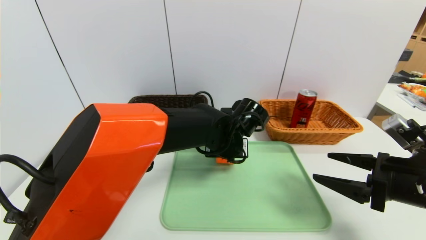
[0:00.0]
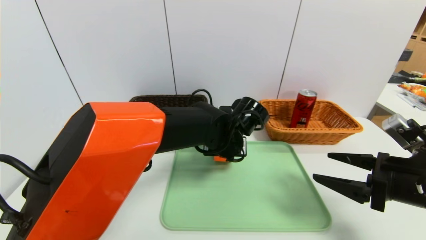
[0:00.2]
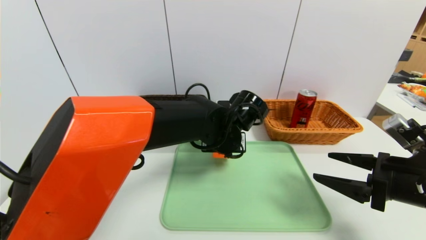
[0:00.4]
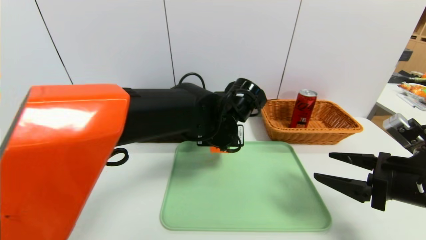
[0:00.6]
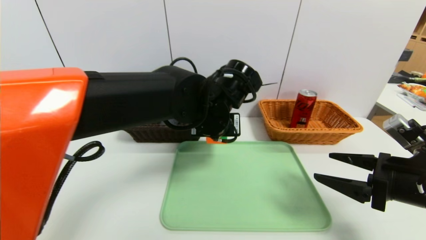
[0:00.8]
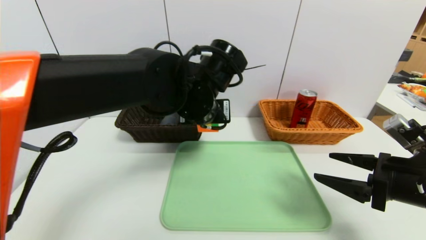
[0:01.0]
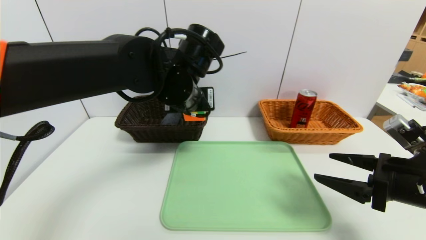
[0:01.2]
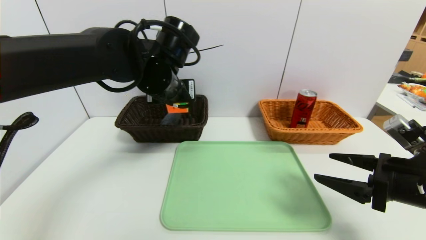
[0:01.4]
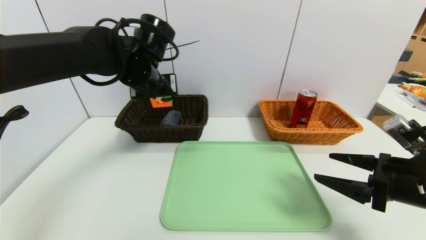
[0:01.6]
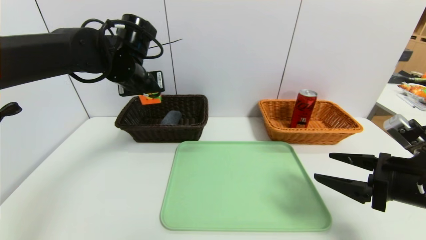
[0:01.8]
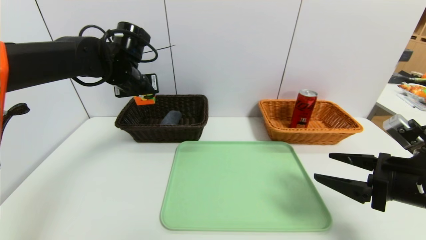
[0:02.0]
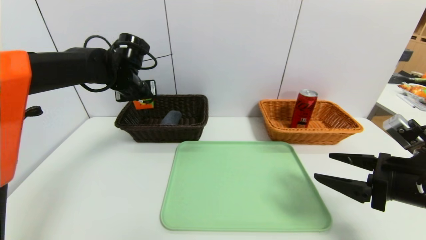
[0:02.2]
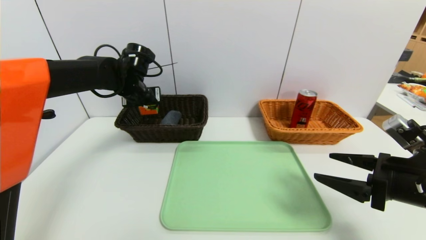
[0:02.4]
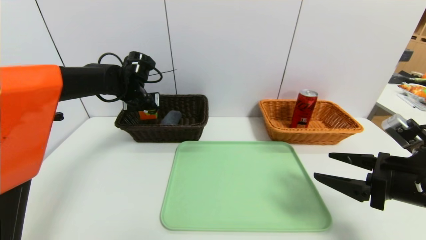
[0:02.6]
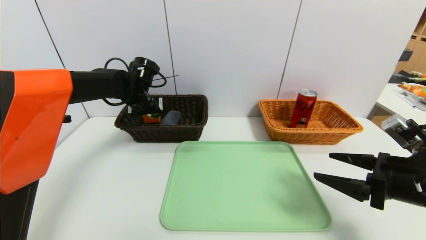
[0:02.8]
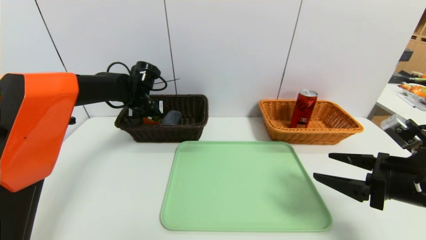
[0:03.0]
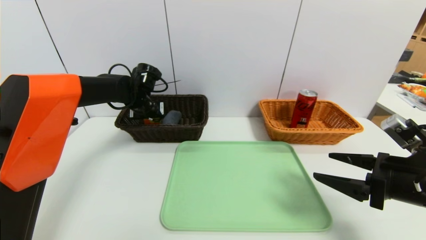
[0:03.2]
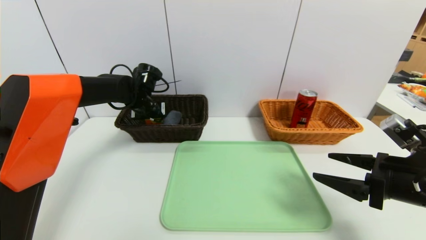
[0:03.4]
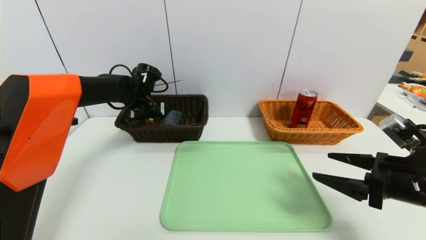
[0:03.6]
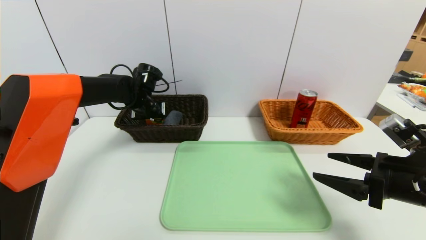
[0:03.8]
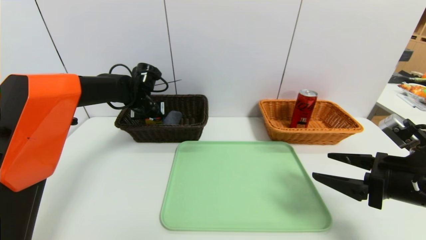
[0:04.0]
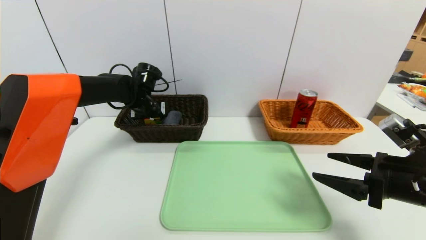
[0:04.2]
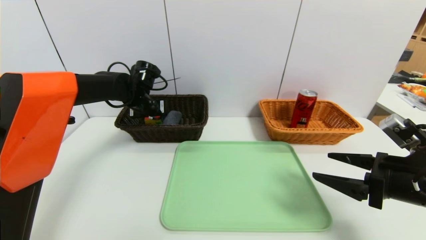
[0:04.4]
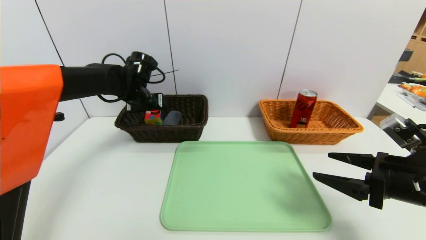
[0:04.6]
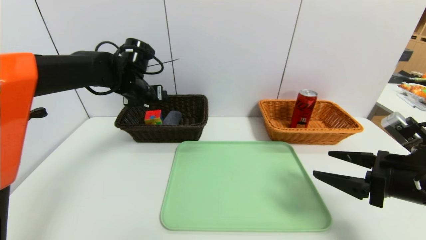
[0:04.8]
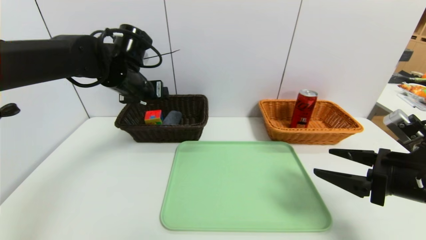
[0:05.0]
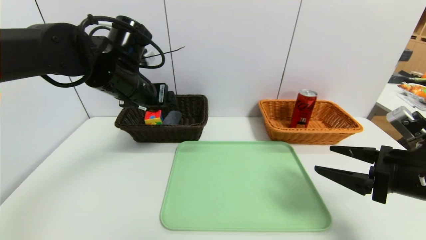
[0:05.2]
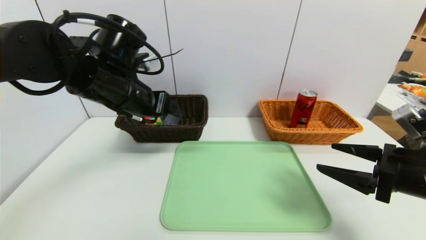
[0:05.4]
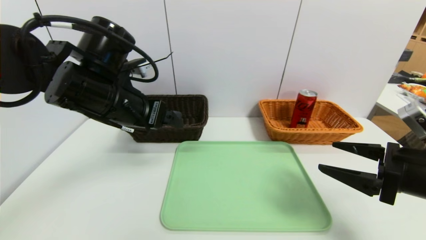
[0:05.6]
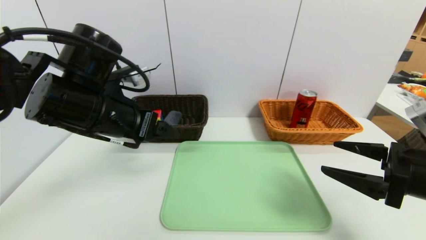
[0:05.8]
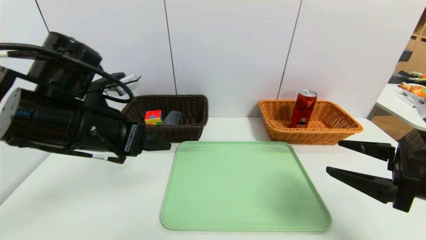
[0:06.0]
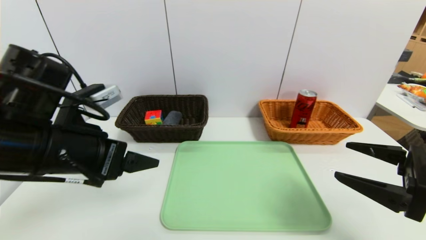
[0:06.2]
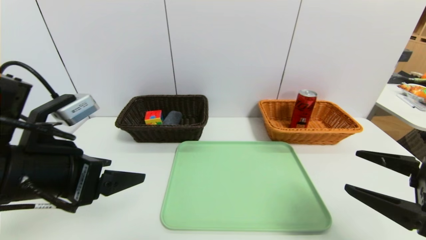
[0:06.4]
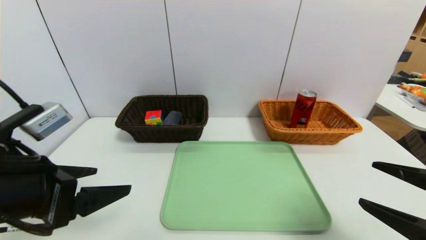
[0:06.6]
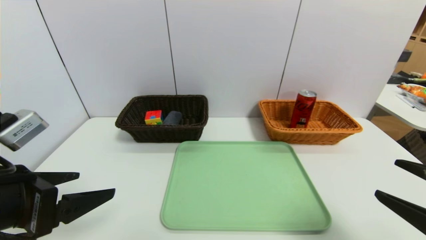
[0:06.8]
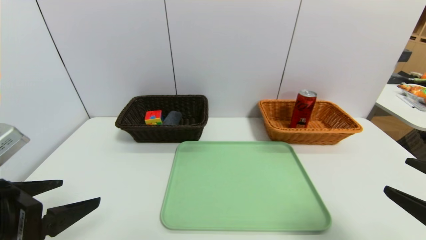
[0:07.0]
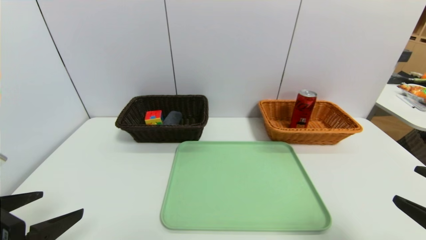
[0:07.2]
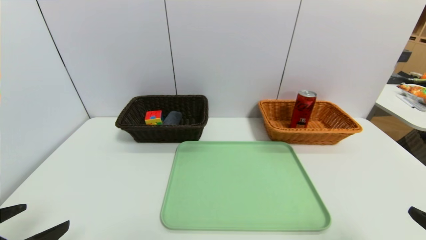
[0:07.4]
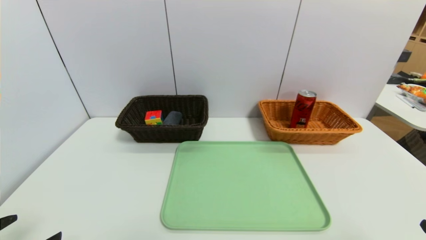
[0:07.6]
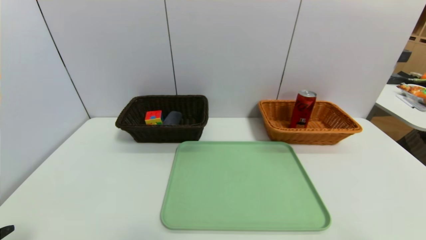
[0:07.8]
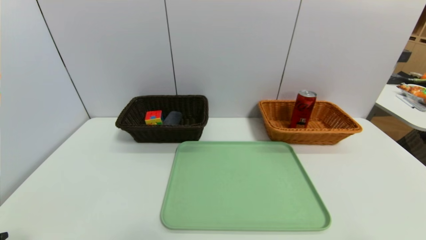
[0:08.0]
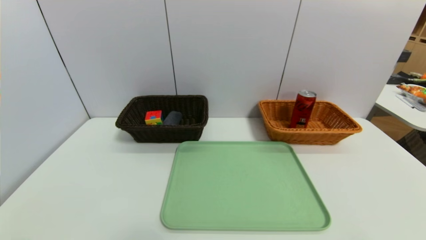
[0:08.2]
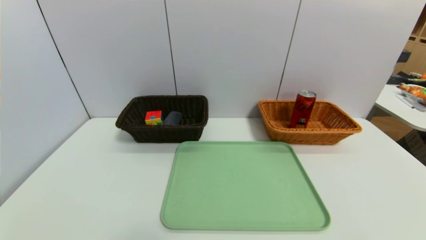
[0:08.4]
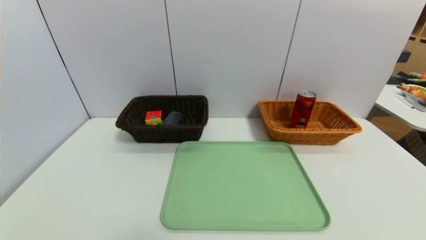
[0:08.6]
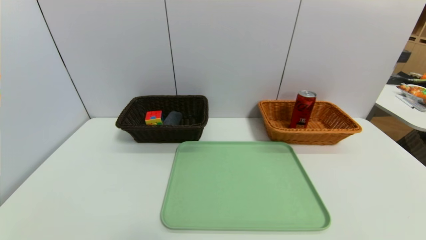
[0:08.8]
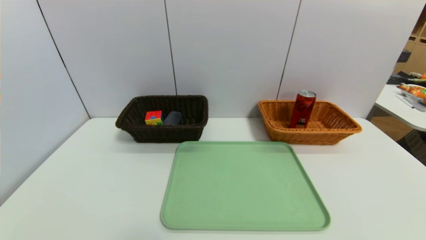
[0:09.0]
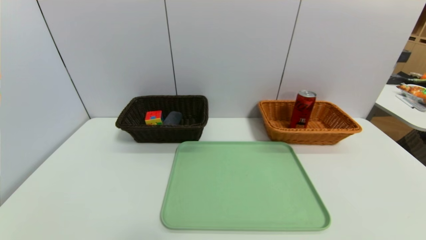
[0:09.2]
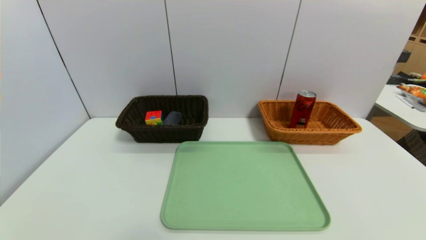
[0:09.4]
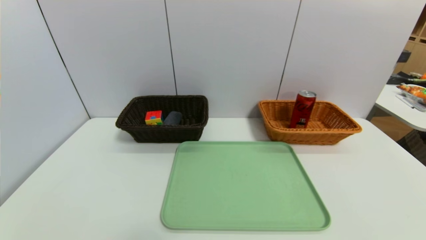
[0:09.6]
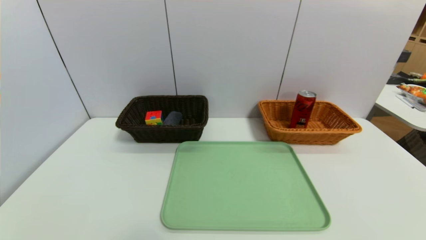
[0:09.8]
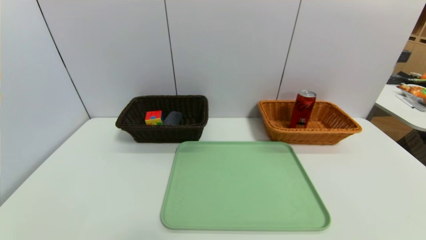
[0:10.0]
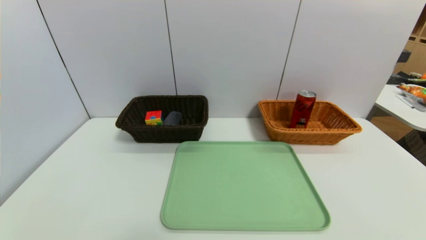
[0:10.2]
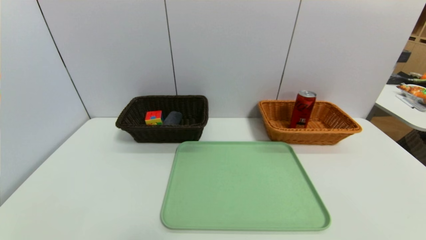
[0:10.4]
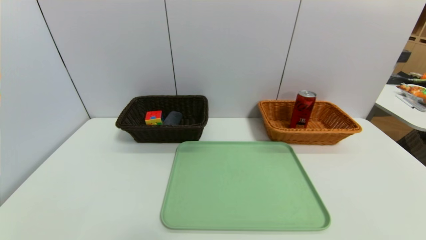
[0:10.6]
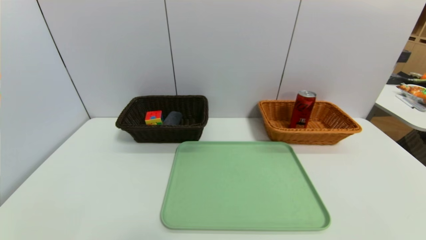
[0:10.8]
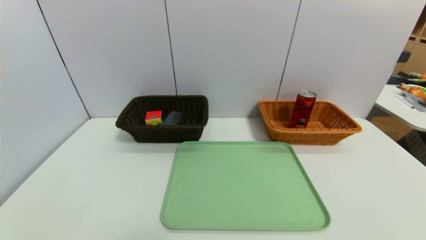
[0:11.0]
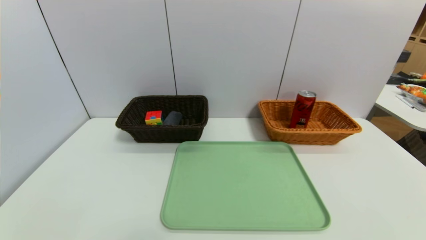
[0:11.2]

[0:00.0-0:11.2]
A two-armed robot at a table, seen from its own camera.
Task of the whole recording: place the food in the right basket with the right gripper, and place the non food items in the left basket with the left gripper.
Step, 0:00.0 to 0:04.4: Grasp the rubiks cube and put it in the left basket.
0:00.0 to 0:01.6: The left gripper heads to the left and upward, covering some 20 cm.
0:01.6 to 0:03.2: The left gripper moves downward, forward and to the left, some 15 cm.
0:03.2 to 0:04.8: The left gripper is displaced upward by about 5 cm, and opens.
0:04.8 to 0:06.4: The left gripper heads backward, covering roughly 25 cm. The right gripper travels backward by roughly 5 cm.
0:06.4 to 0:08.0: The right gripper shifts roughly 10 cm backward. Meanwhile the left gripper travels backward, downward and to the left by approximately 20 cm.

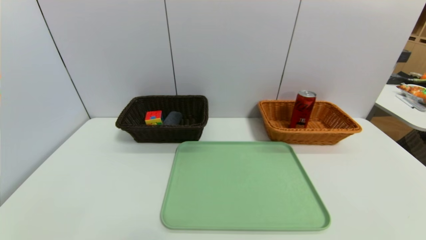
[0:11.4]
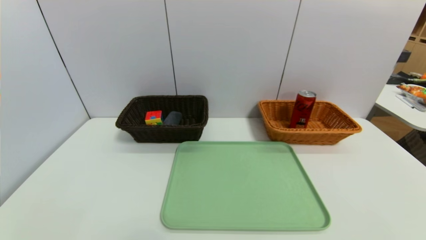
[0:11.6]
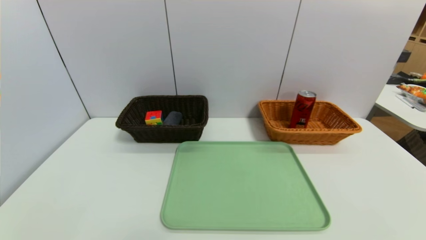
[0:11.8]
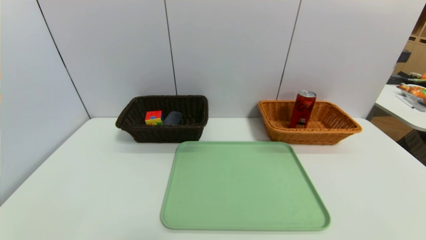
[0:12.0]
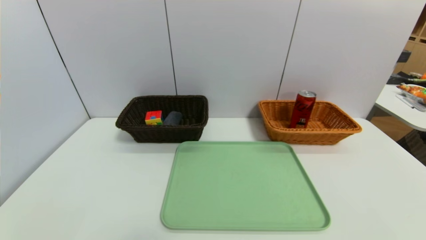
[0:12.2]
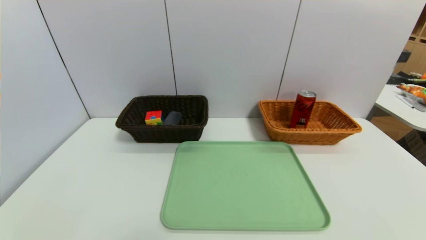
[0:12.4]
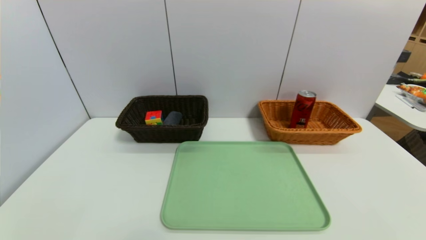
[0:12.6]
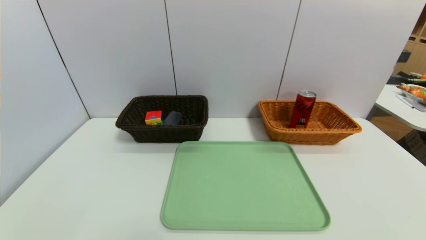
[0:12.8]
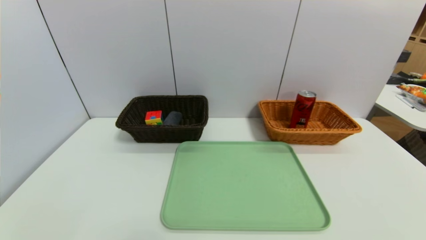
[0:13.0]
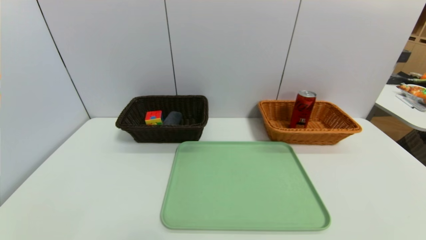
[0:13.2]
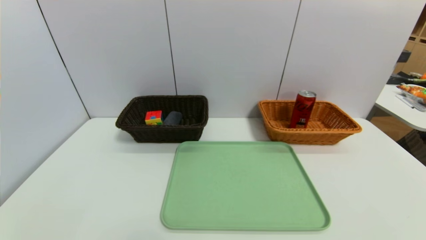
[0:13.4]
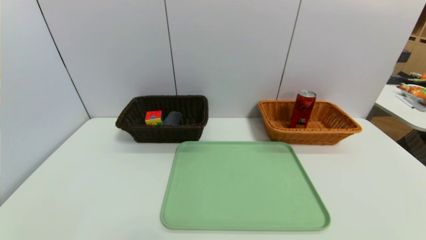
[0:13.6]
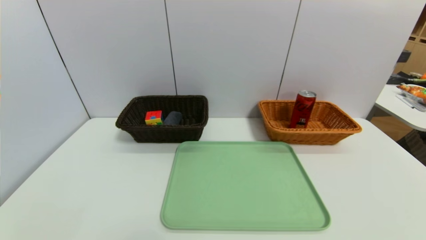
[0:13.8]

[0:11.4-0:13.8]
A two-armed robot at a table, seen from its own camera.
Task of the whole recording: place the food in the right basket with the right gripper, and place the non food items in the left basket with the left gripper.
0:11.4 to 0:13.8: Both grippers stay about where they are.

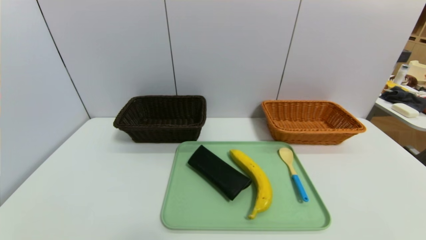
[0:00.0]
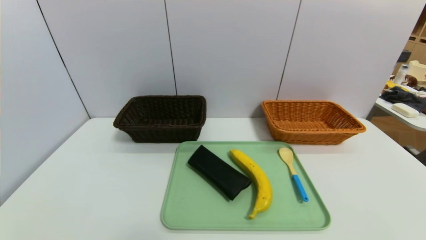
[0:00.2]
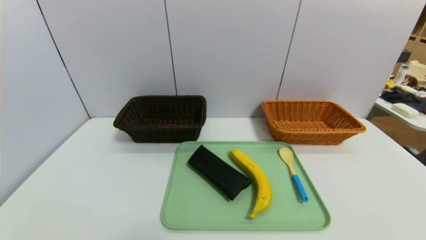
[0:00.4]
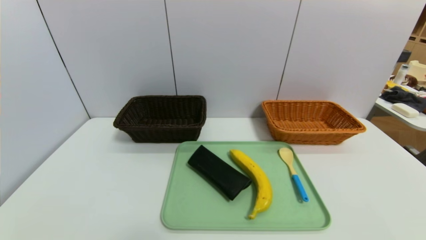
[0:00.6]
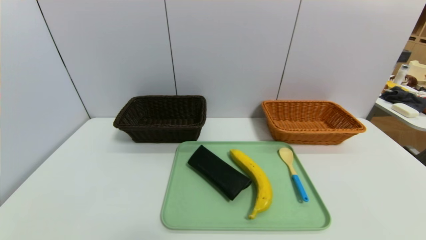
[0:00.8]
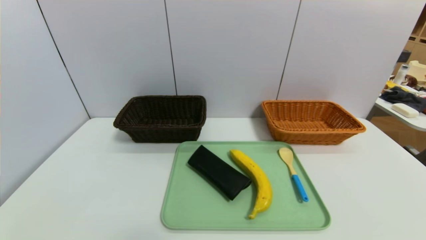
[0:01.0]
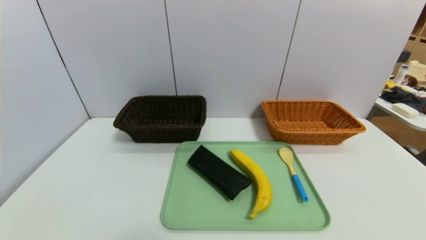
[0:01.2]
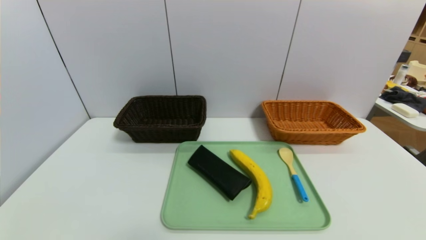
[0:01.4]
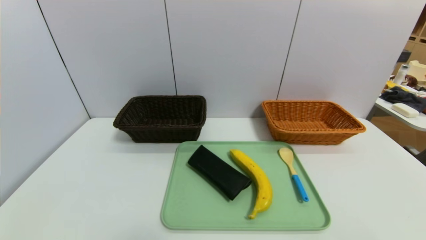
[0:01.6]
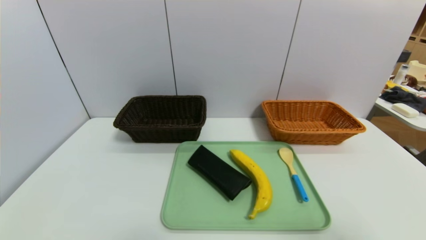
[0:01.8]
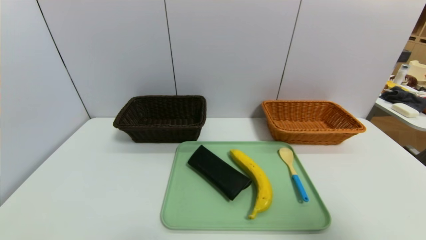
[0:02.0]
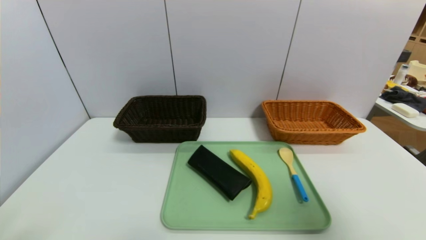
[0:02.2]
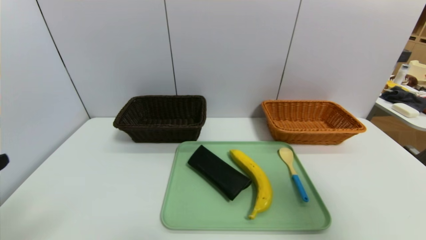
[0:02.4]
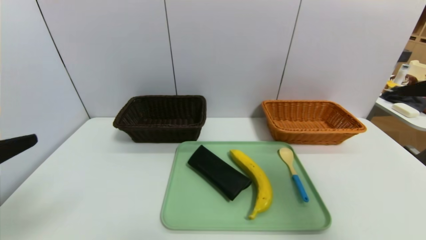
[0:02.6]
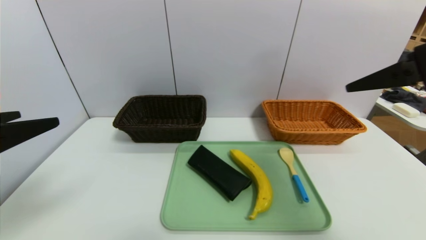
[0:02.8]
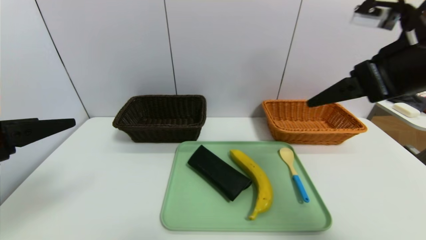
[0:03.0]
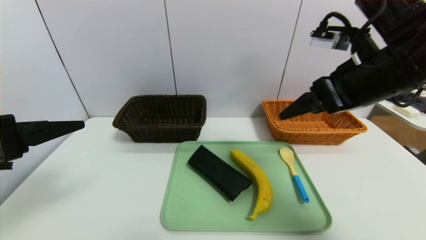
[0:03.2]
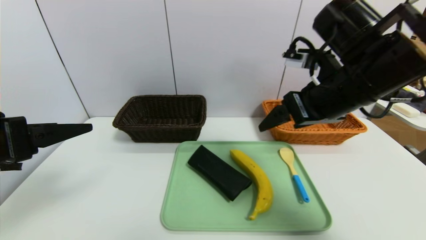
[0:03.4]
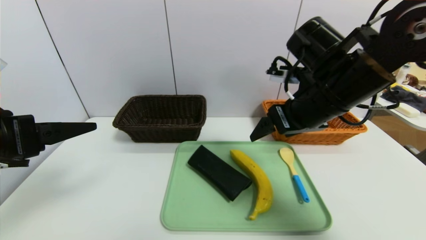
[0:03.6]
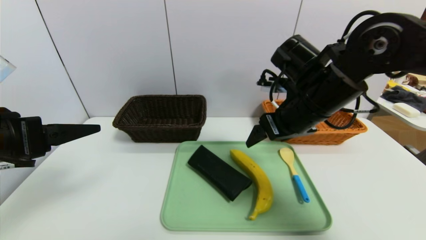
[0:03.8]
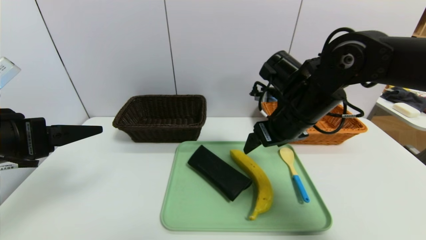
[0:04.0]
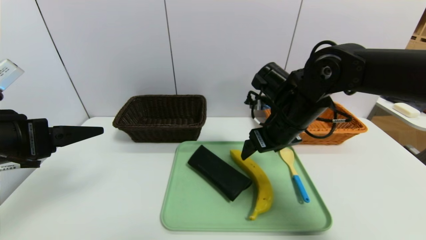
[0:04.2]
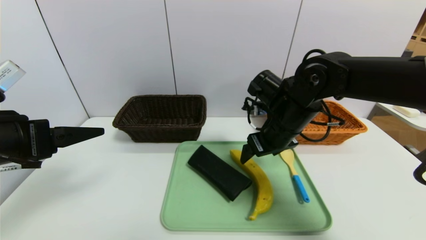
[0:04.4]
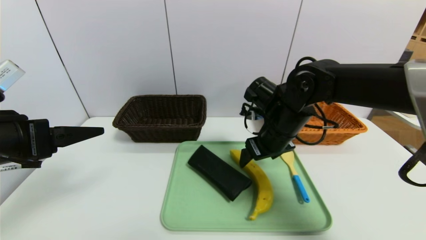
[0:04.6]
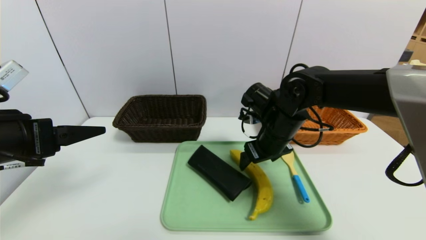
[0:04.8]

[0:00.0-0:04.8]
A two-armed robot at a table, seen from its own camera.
Task of the whole recording: place the food in the right basket with the right gripper, and place the non food items in the left basket with the left gripper.
0:01.6 to 0:03.2: The right gripper heads forward and to the left, covering some 30 cm, while the left gripper moves forward and upward, some 20 cm.
0:03.2 to 0:04.8: The right gripper travels downward, forward and to the left by approximately 20 cm.
